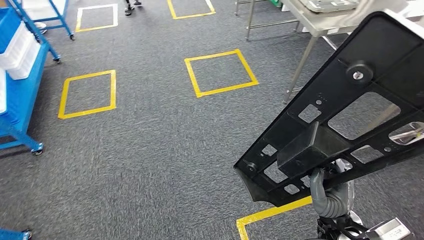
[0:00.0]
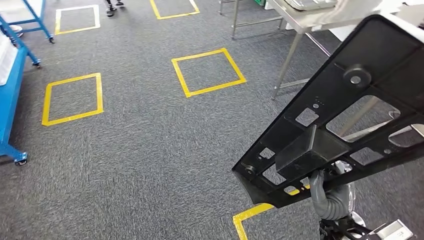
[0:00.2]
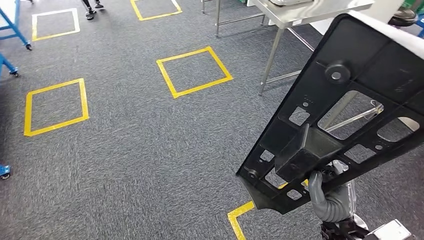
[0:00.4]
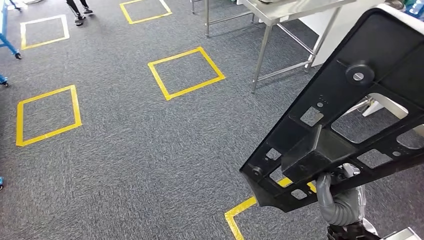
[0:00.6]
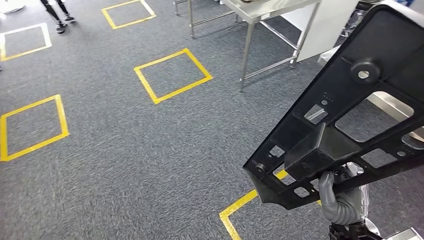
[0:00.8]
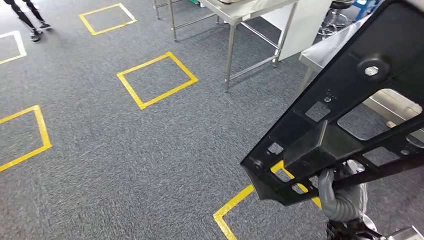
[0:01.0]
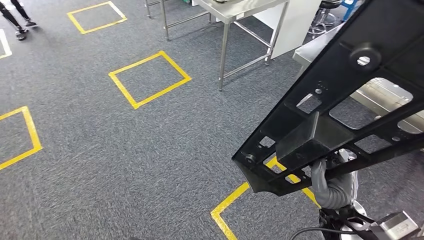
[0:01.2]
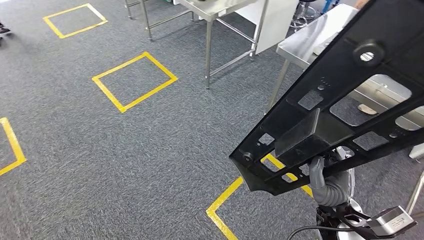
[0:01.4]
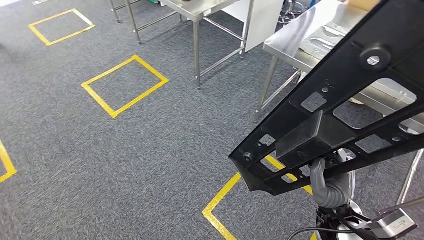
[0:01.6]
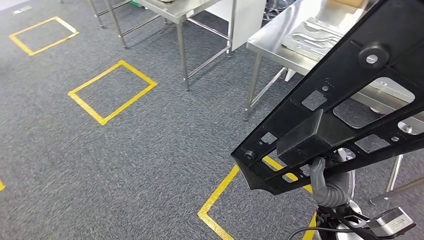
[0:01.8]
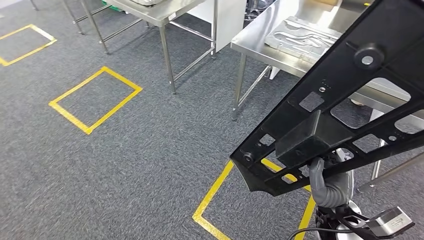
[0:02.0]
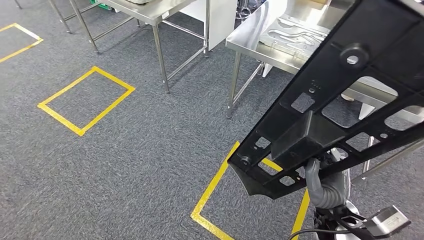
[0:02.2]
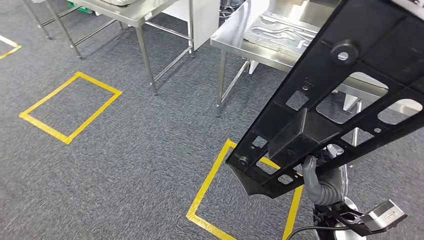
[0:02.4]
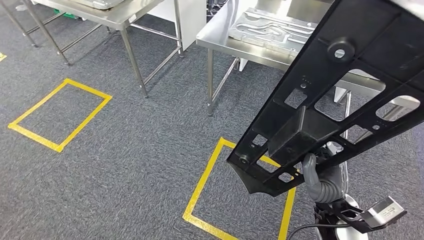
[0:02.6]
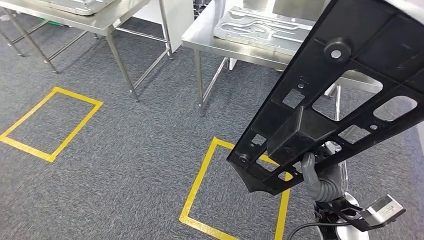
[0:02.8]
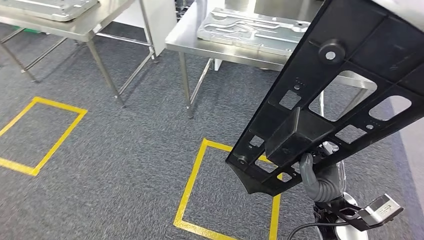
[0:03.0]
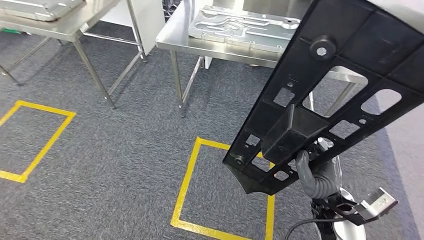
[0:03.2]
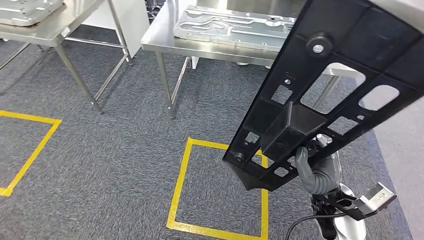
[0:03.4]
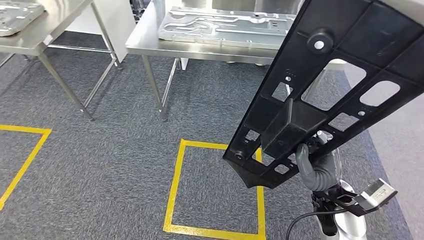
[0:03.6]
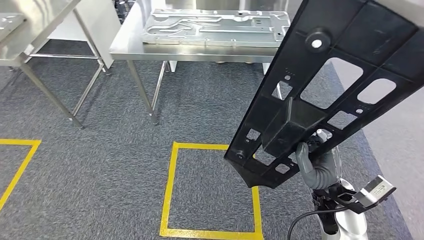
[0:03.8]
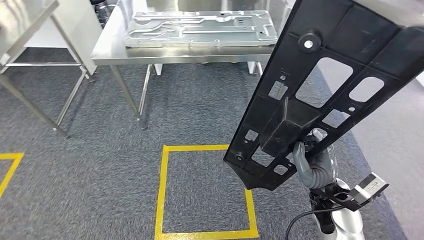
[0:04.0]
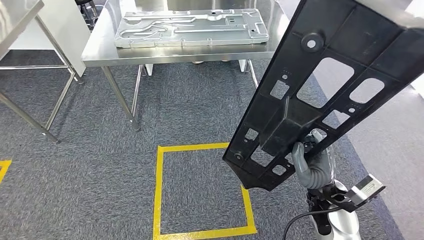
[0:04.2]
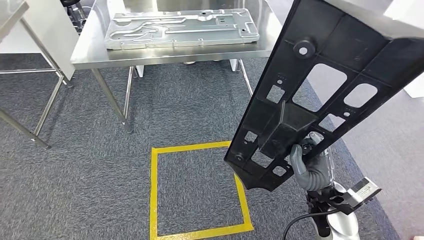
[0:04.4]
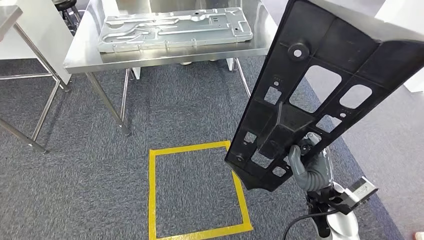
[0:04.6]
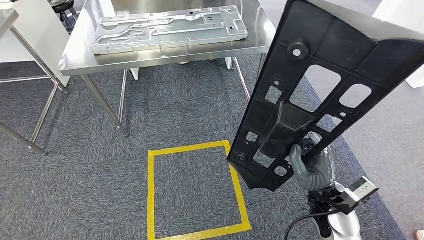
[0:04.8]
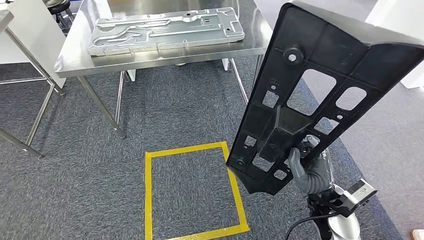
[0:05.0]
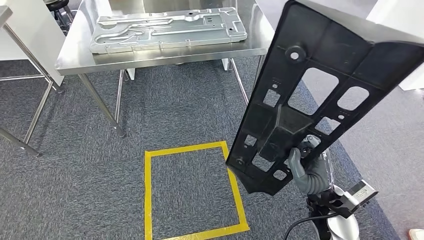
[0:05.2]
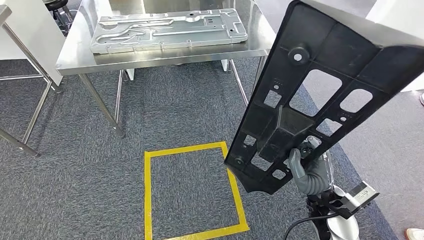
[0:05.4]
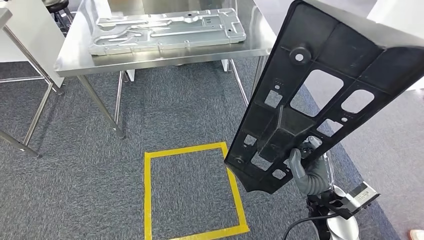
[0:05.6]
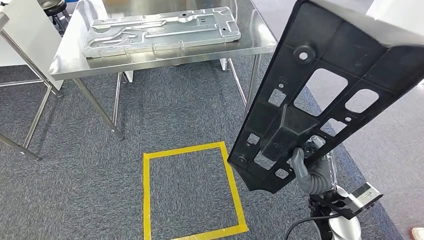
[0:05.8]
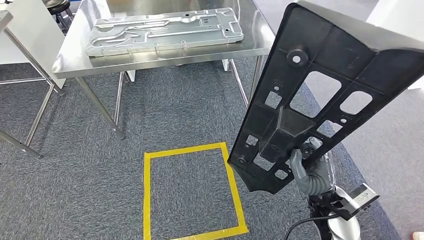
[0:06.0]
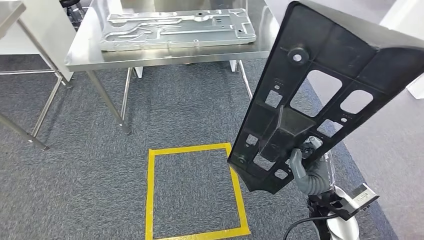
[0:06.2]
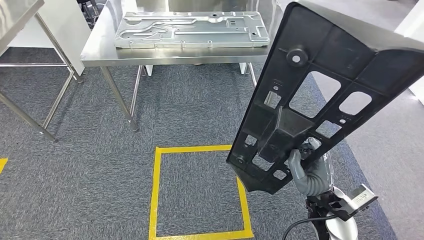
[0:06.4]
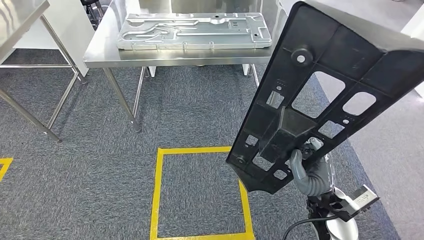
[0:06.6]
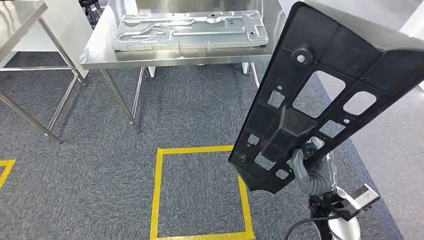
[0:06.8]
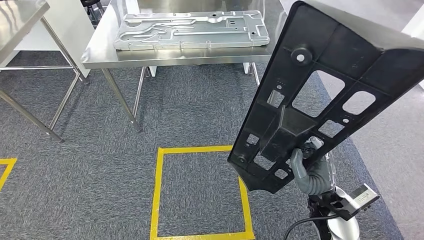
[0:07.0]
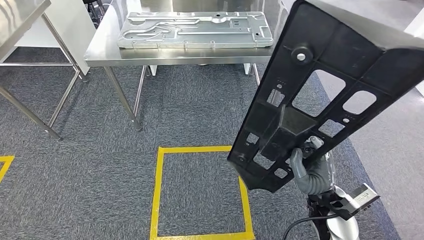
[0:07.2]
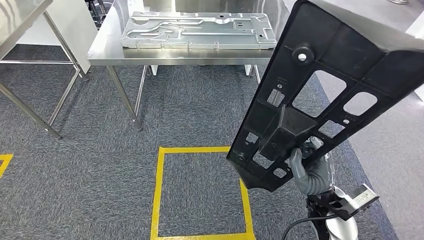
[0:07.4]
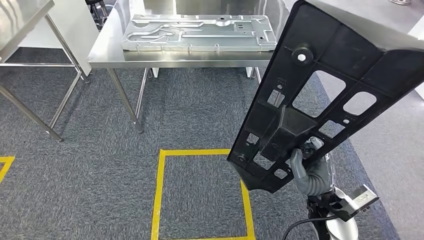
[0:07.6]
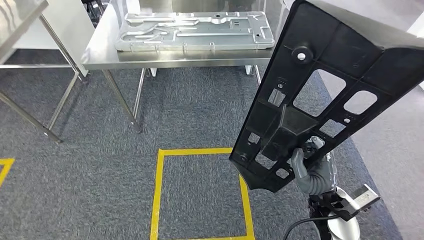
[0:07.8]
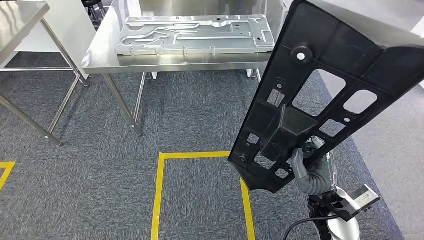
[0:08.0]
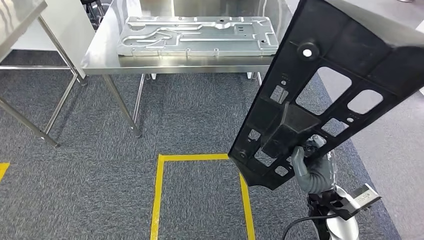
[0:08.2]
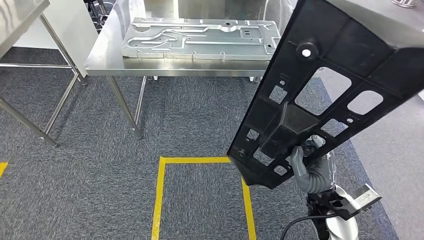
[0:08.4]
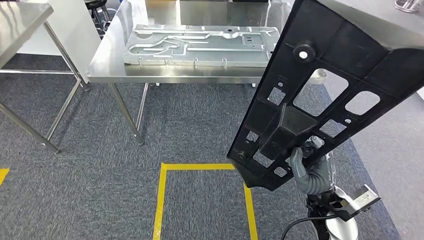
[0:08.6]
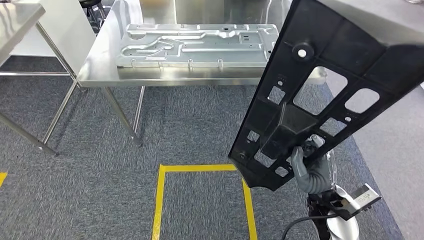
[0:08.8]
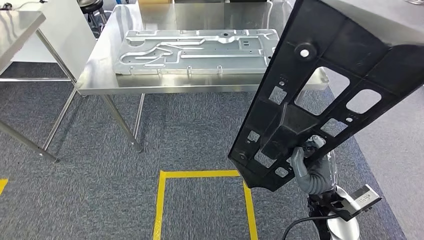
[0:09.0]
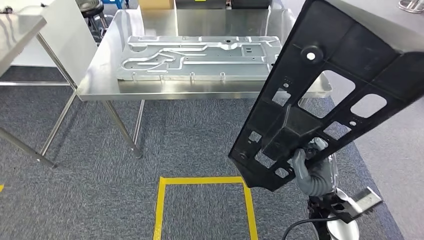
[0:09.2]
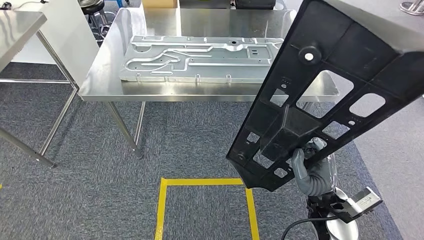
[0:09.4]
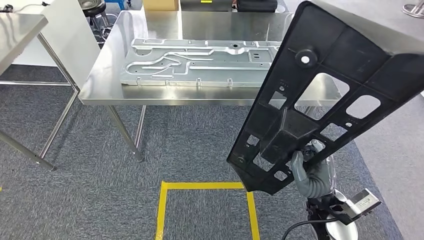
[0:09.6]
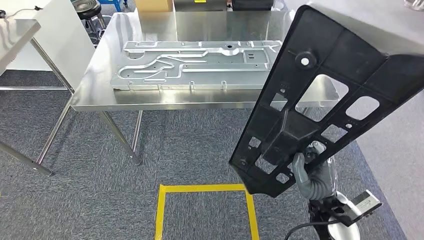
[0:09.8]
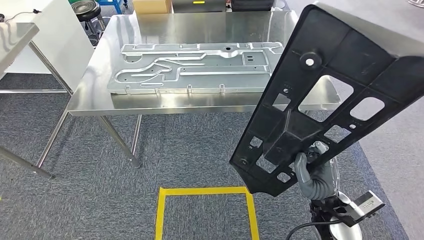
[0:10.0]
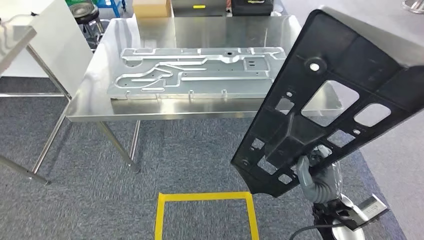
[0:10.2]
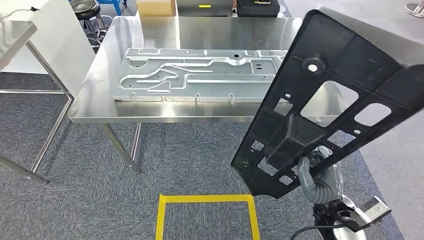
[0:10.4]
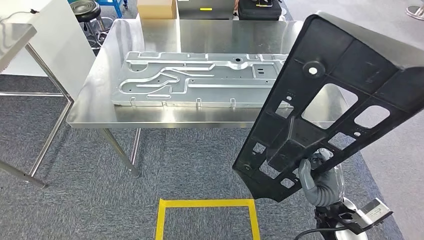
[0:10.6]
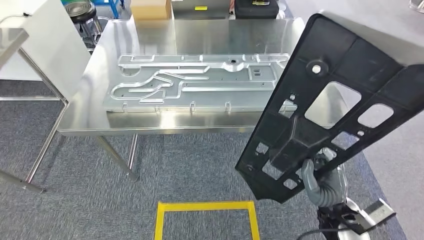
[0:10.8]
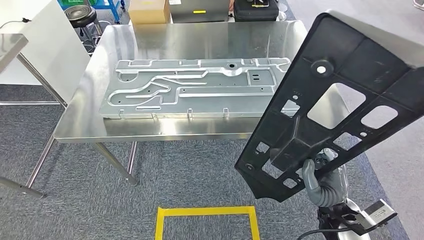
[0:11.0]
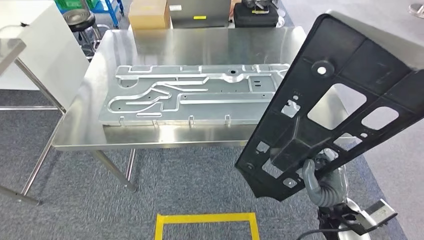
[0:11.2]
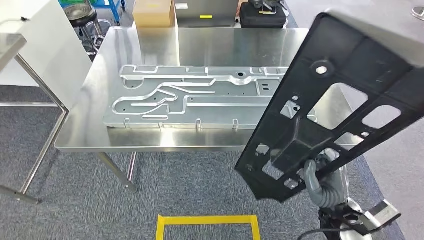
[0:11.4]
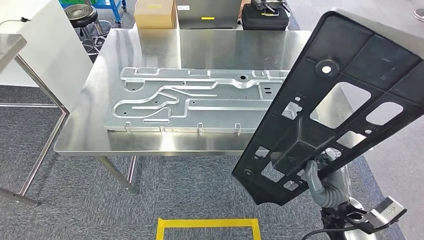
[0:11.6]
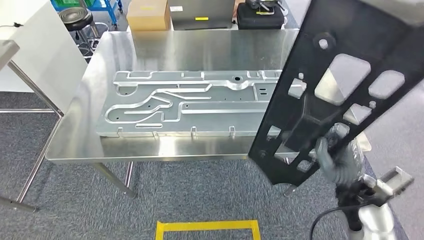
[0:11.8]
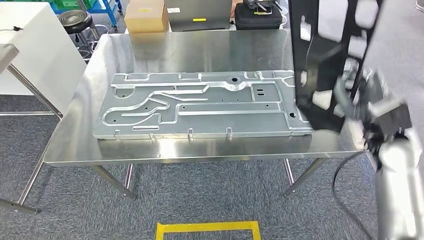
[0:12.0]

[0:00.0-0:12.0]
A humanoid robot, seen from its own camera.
Step, 0:00.0 to 0:02.2: Move the large material to the workbench.

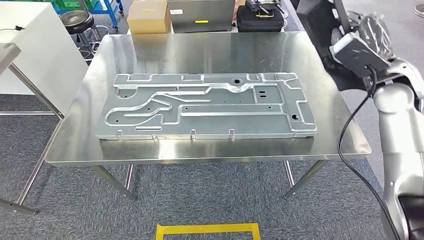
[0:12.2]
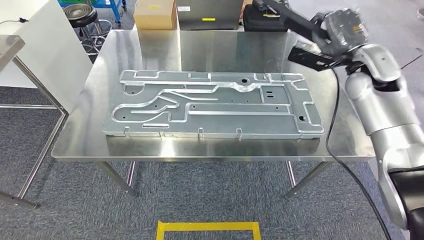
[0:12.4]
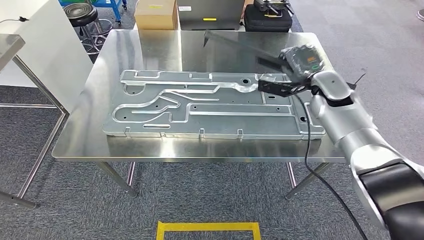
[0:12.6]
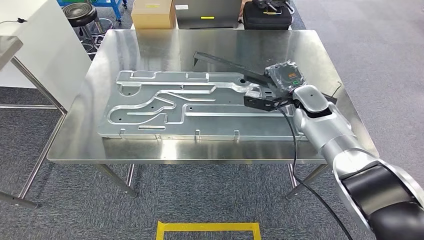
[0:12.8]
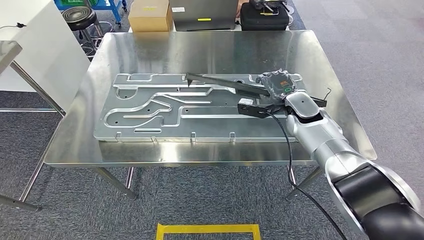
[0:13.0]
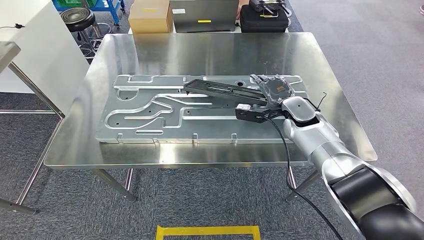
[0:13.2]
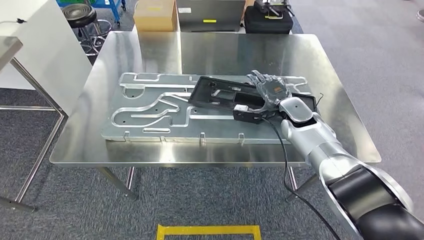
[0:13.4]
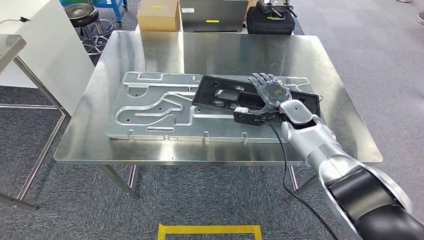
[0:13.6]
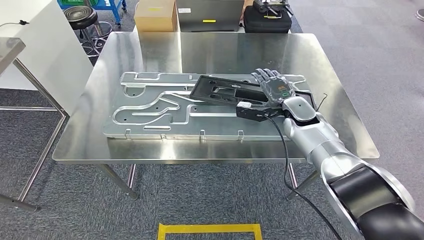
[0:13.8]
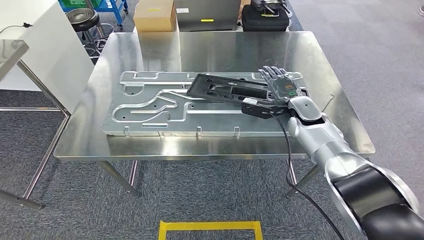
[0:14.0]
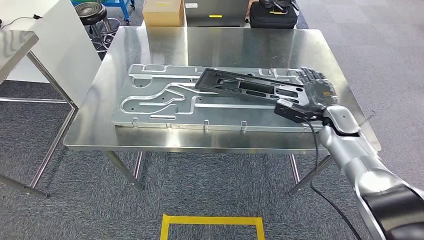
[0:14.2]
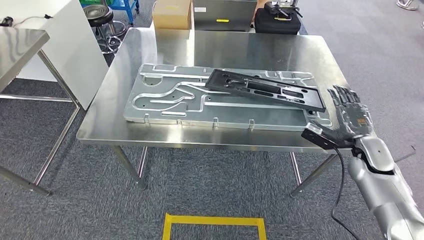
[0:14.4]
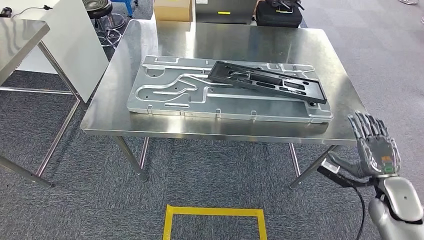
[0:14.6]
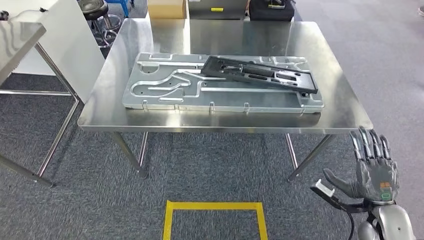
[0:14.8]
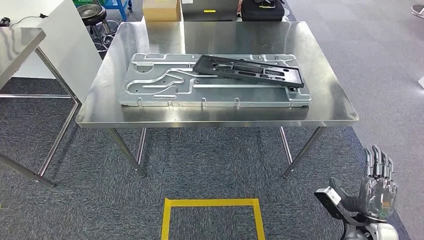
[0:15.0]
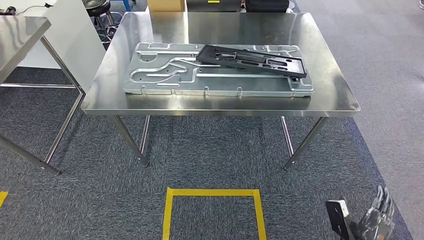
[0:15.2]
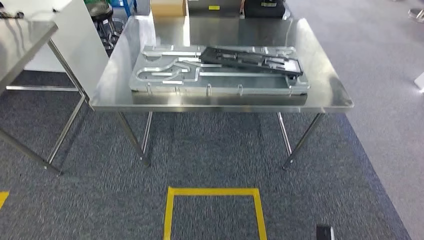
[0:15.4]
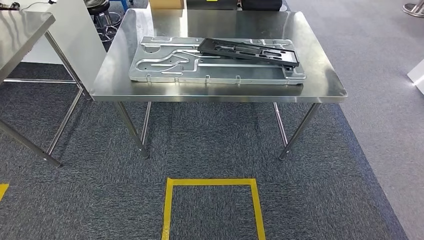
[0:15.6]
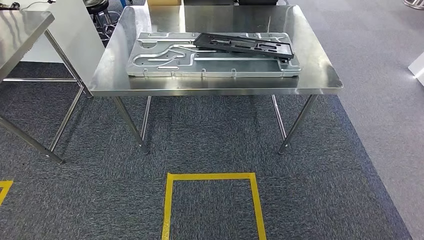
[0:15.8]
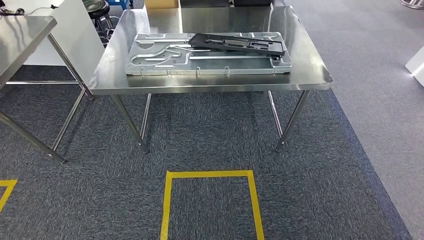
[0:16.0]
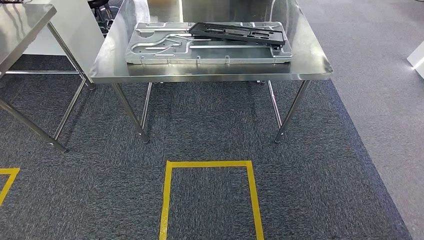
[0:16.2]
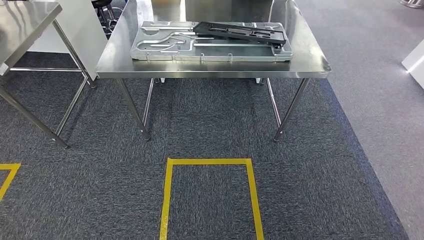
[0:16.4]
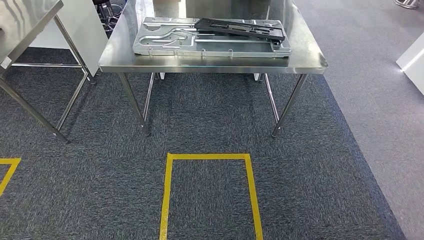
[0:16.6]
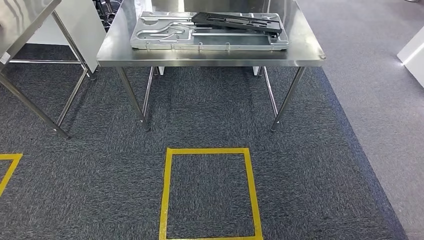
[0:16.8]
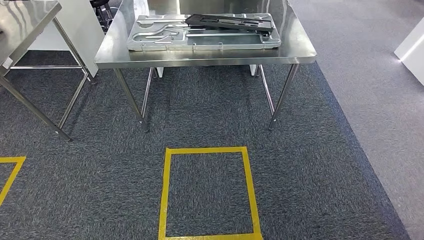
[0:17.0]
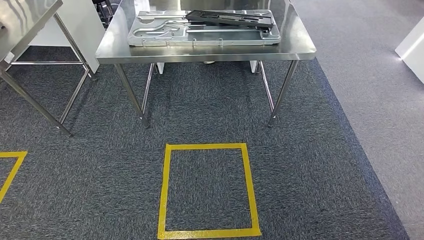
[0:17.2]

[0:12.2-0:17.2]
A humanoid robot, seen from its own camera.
Step, 0:12.2 to 0:14.2: Insert the large material into the corresponding slot on the workbench.
Step, 0:15.8 to 0:17.2: Move to the initial position of the shelf.
